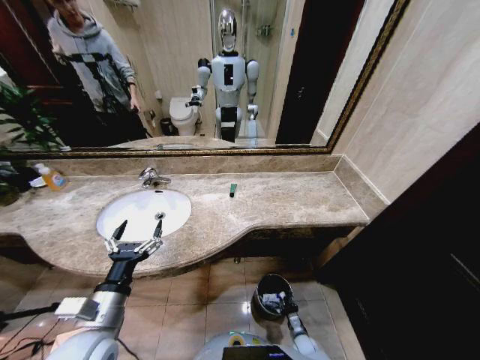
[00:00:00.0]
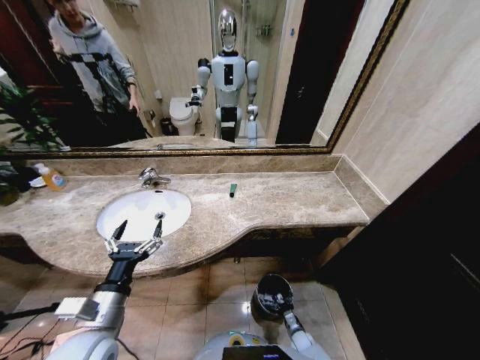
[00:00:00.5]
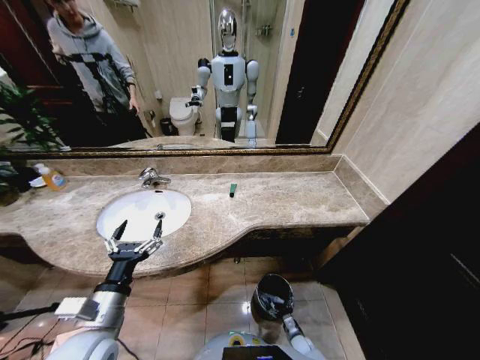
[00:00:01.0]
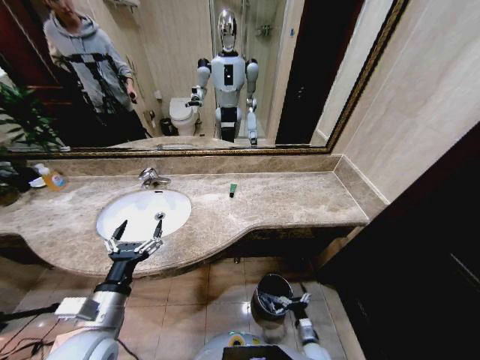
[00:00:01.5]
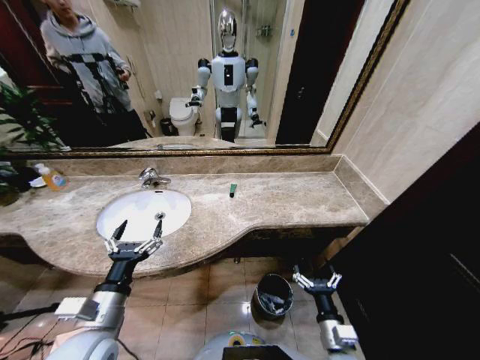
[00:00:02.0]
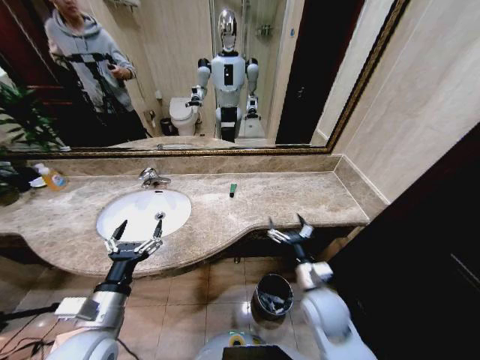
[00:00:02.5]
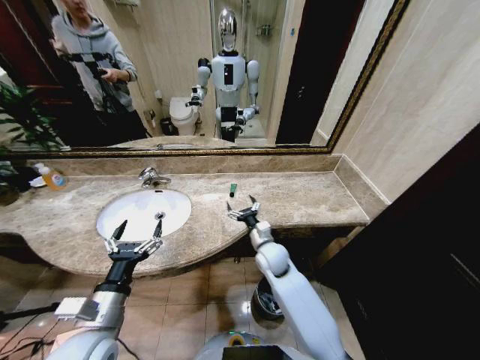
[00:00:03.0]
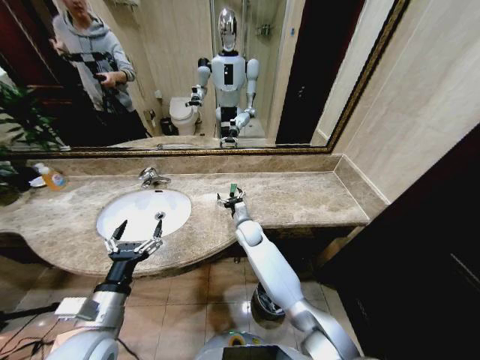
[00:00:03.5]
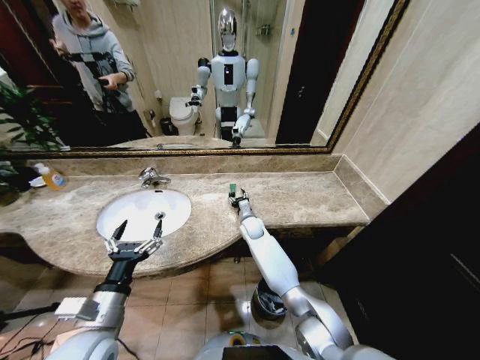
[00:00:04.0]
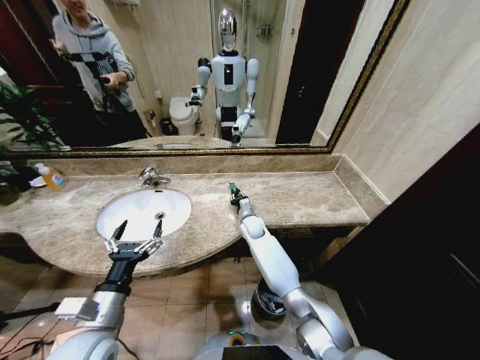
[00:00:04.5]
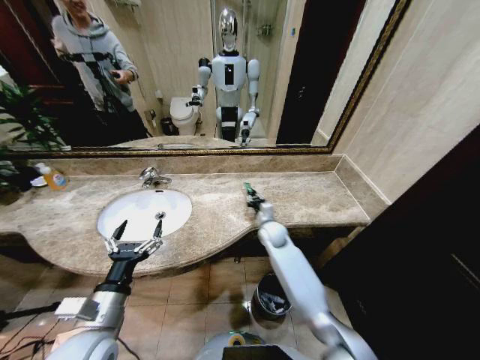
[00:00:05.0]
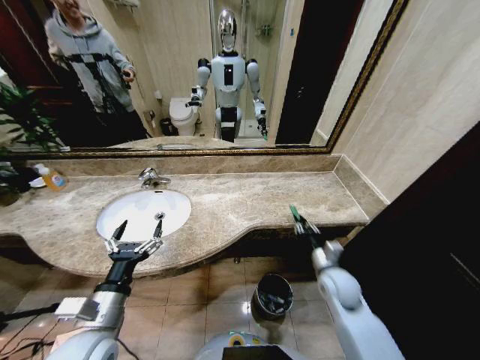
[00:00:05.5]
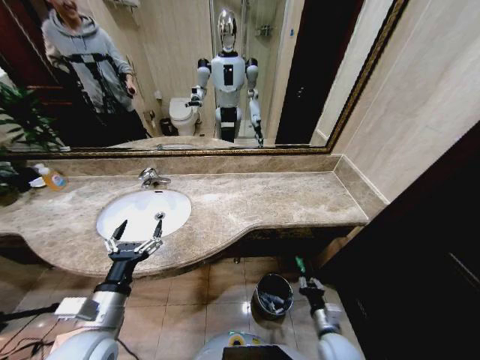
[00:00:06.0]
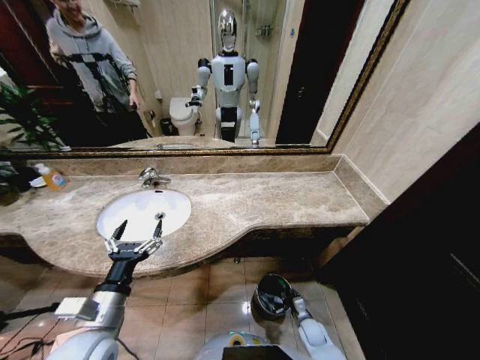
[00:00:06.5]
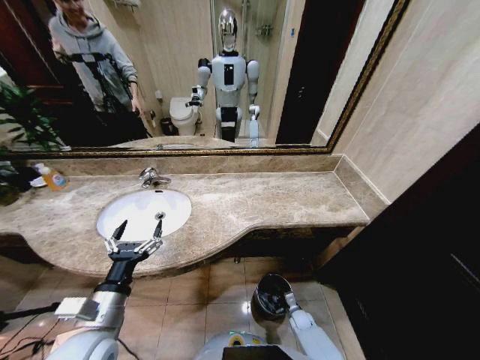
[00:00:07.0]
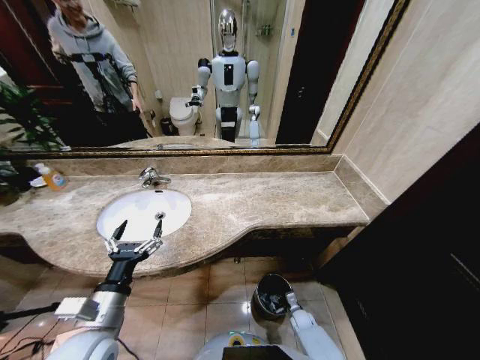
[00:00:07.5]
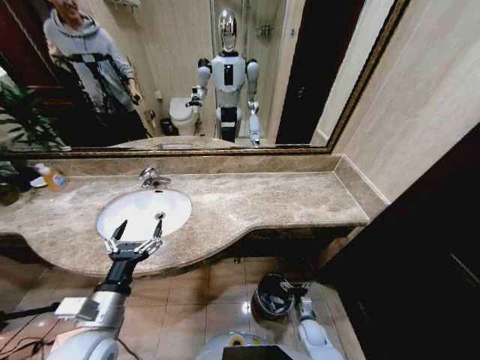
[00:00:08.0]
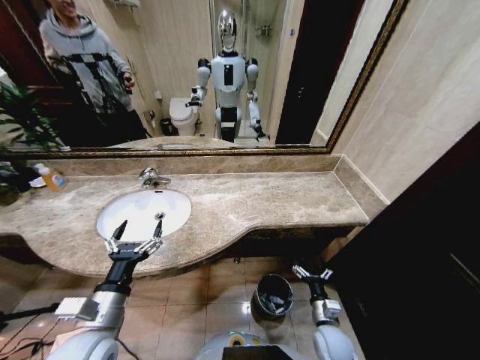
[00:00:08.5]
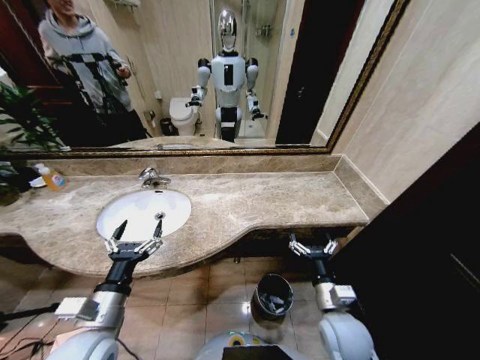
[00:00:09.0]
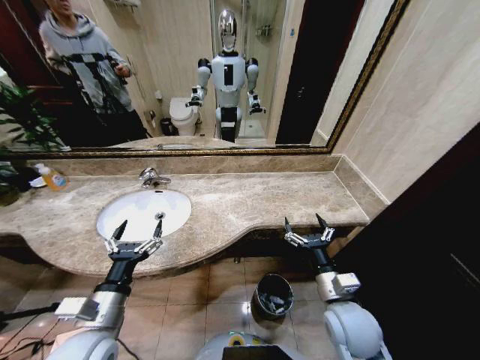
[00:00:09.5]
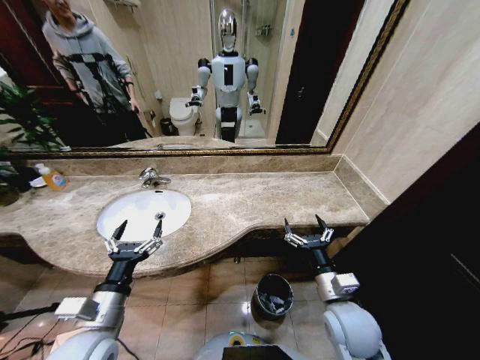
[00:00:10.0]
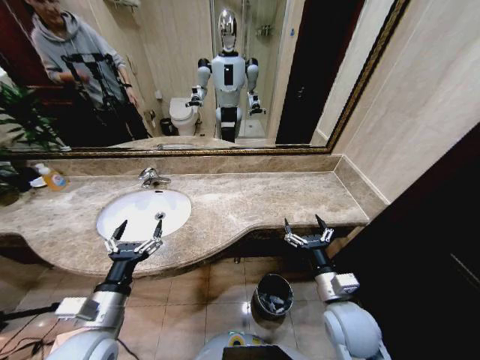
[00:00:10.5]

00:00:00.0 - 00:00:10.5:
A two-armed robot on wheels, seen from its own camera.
Task of the whole recording: Pick up the trash from the sink and place it in the trash bin.
00:00:00.0 - 00:00:02.0: The right gripper shifts about 30 cm upward, and opens its fingers.
00:00:02.0 - 00:00:04.0: The right gripper shifts approximately 40 cm forward and to the left.
00:00:04.0 - 00:00:06.5: The right gripper moves backward, downward and to the right, about 40 cm, and closes its fingers.
00:00:06.5 - 00:00:08.5: The right gripper is displaced upward by some 15 cm, and opens its fingers.
00:00:08.5 - 00:00:10.5: The right gripper heads upward, covering roughly 20 cm.
